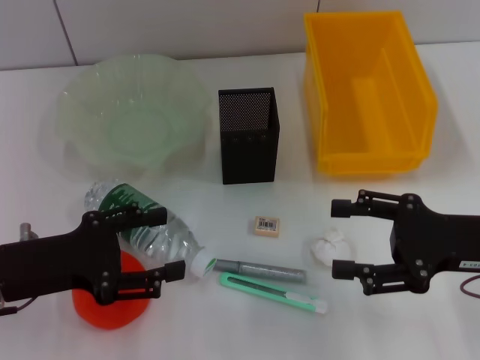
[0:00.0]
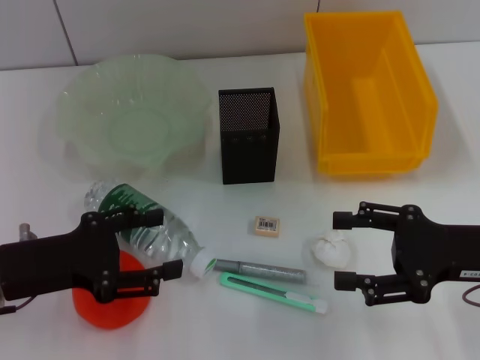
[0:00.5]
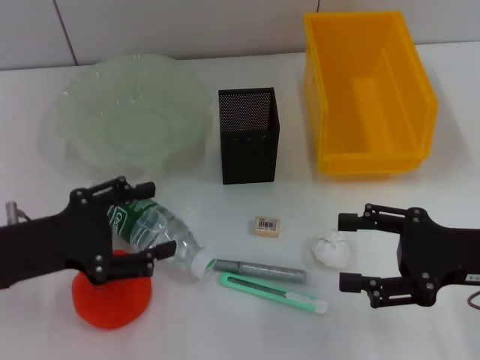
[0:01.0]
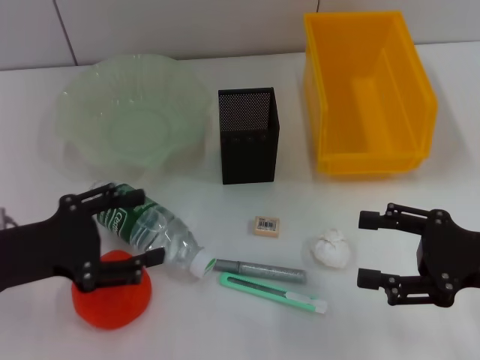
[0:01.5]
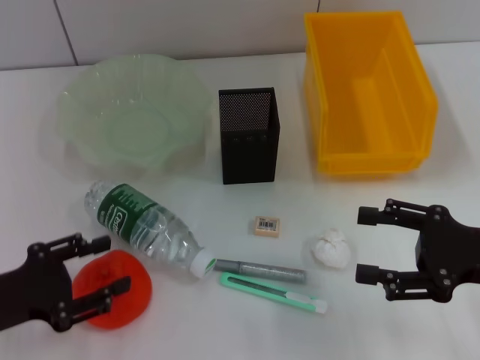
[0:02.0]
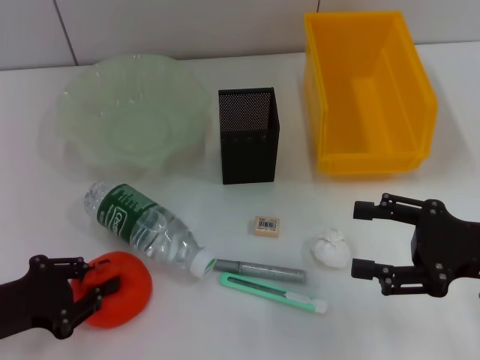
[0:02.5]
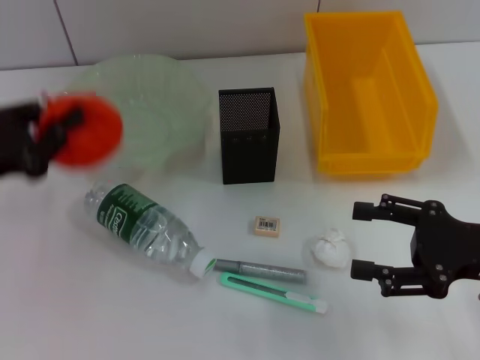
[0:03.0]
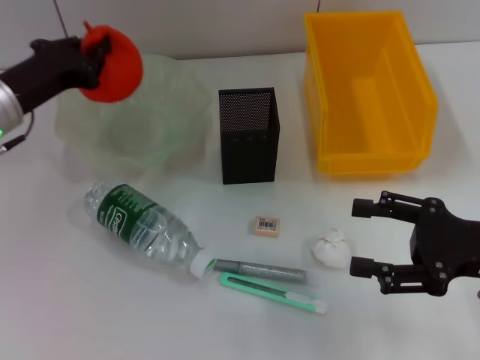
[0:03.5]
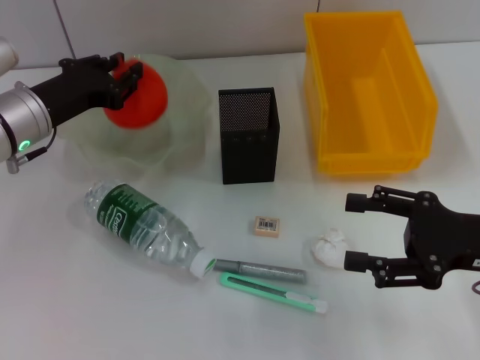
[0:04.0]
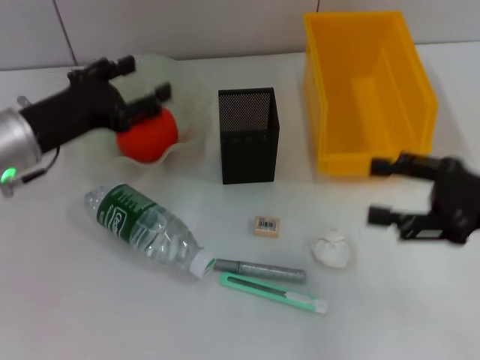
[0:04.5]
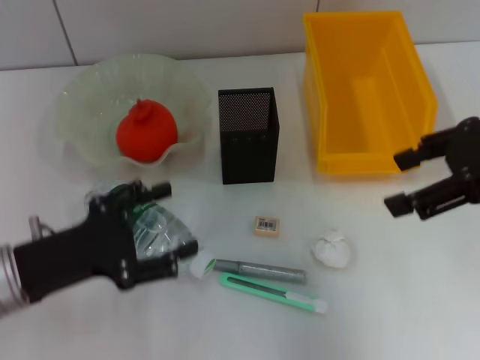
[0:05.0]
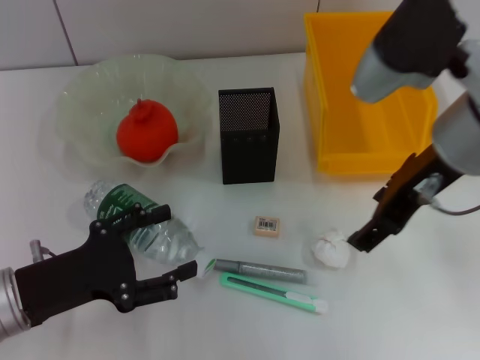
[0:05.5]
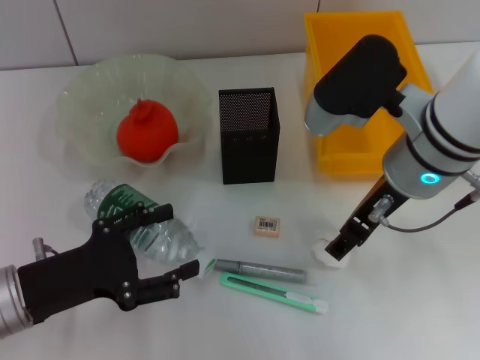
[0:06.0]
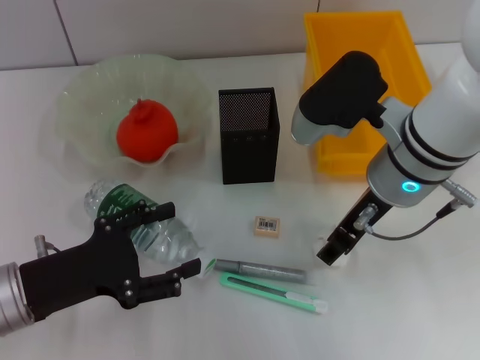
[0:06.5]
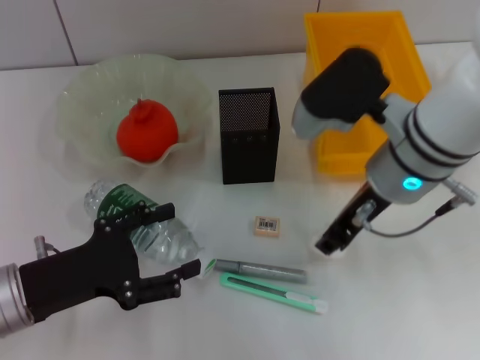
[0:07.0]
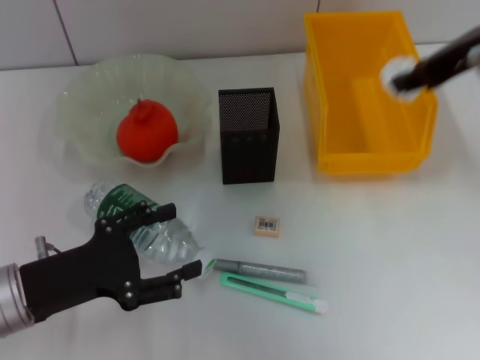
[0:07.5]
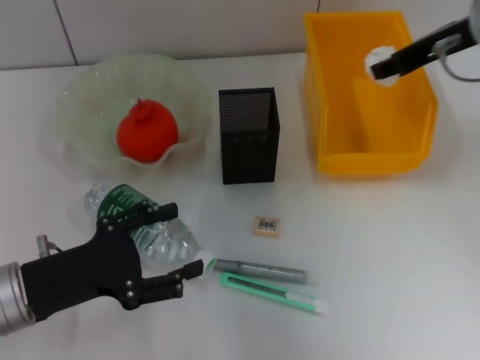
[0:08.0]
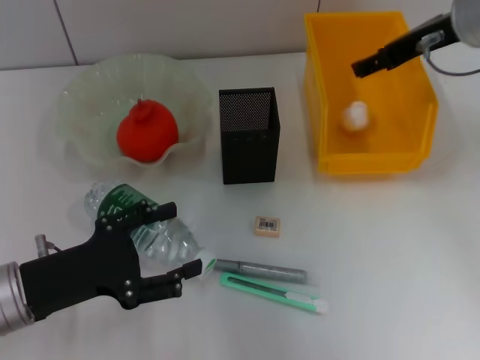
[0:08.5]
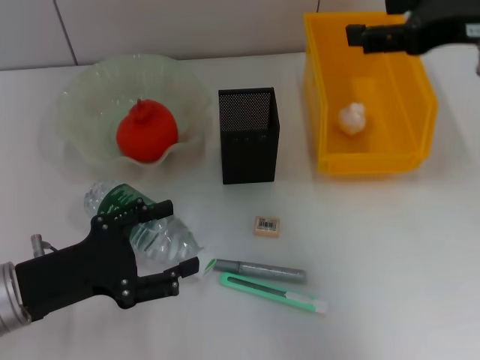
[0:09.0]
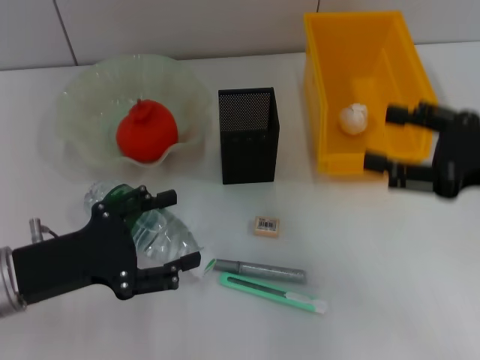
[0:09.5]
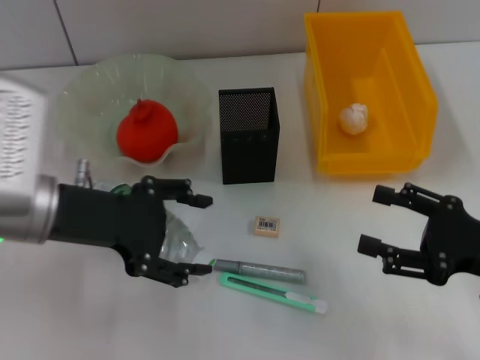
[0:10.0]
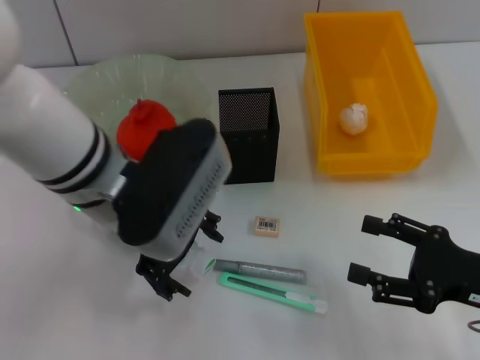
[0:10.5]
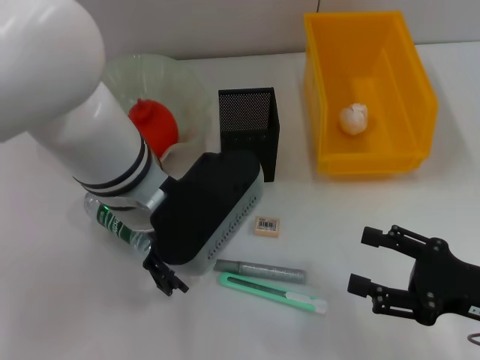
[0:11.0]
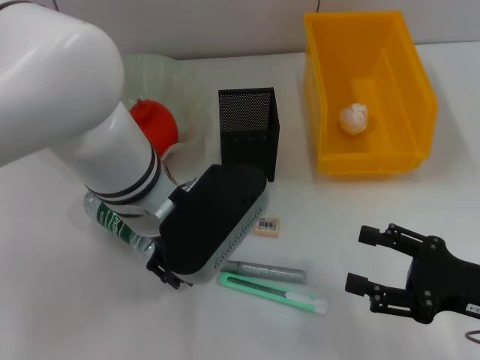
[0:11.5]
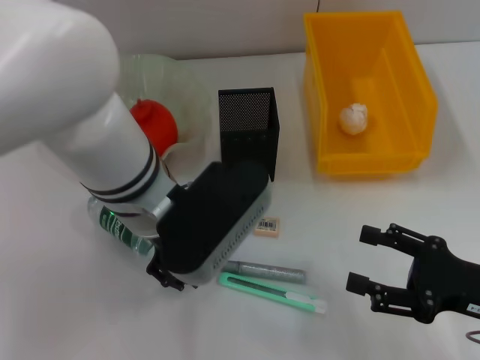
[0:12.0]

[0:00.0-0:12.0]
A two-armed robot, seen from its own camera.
Step, 0:00.0 to 0:02.5: Grab the orange with the left hand.
Step, 0:03.0 to 0:04.0: Place the orange into the fruit bowl with the left hand.
Step, 0:04.5 to 0:06.5: Grab the paper ball with the right hand.
Step, 0:07.0 to 0:08.5: Place the paper ball into the trash can with the right hand.
Step, 0:09.0 to 0:11.5: Grab the water bottle with the left hand.
0:00.0 to 0:02.0: The left gripper shifts by roughly 5 cm.
0:02.0 to 0:04.0: The left gripper is displaced forward and to the right by some 20 cm, and closes.
0:04.0 to 0:06.0: The right gripper travels to the left, forward and upward by about 20 cm, while the left gripper shifts some 15 cm backward, and opens its fingers.
0:06.0 to 0:08.0: The right gripper is displaced to the right, forward and upward by roughly 15 cm, and closes up.
0:08.0 to 0:10.0: The right gripper travels backward and downward by some 25 cm, and opens; the left gripper travels upward and forward by some 10 cm.
0:10.0 to 0:12.0: The left gripper goes about 15 cm to the right, and closes.

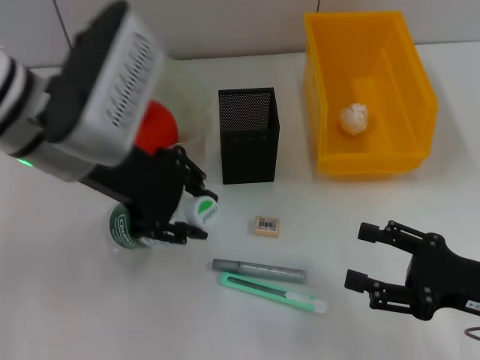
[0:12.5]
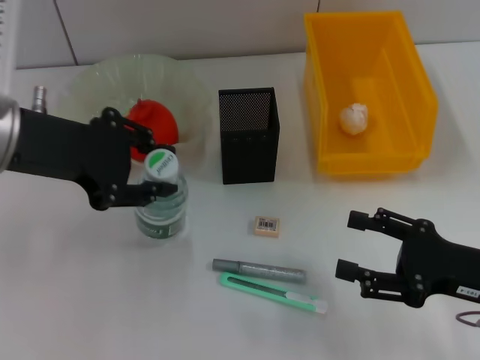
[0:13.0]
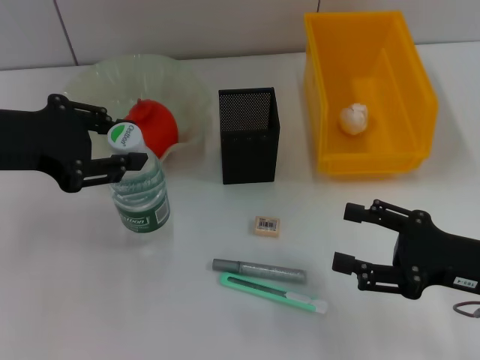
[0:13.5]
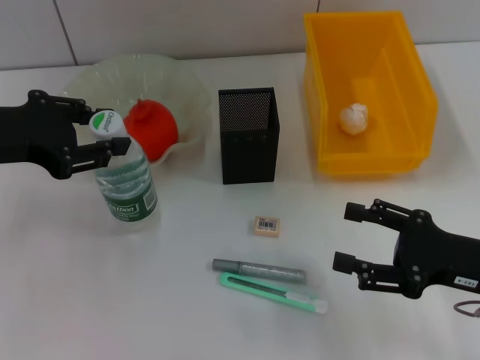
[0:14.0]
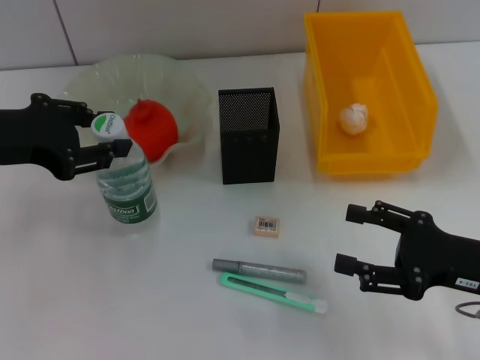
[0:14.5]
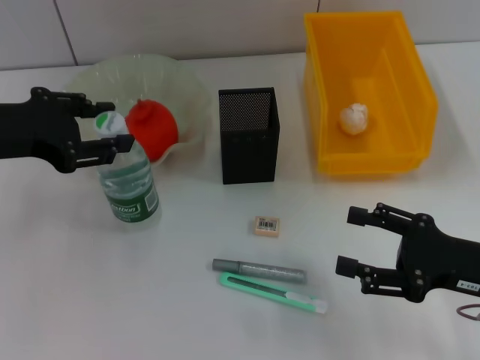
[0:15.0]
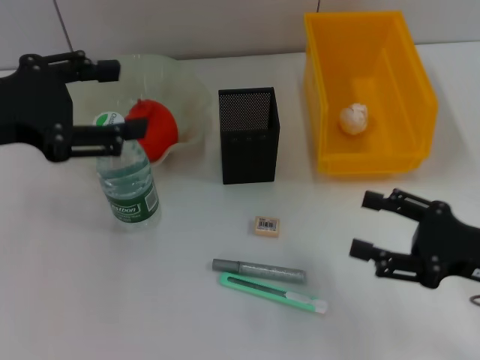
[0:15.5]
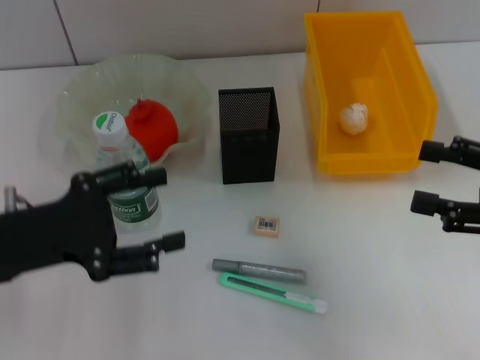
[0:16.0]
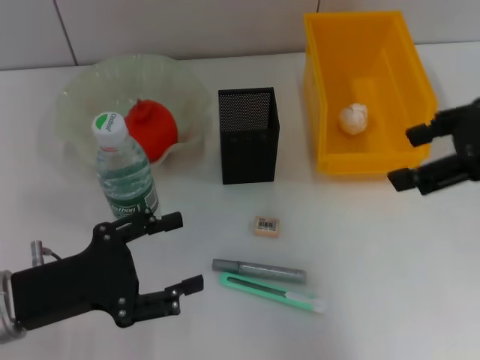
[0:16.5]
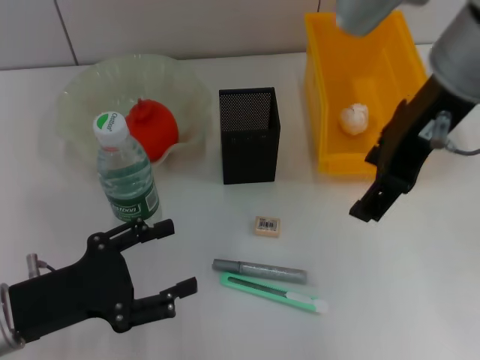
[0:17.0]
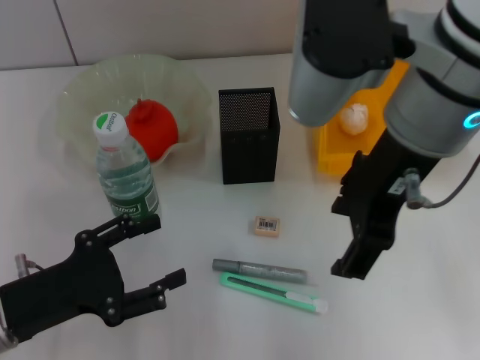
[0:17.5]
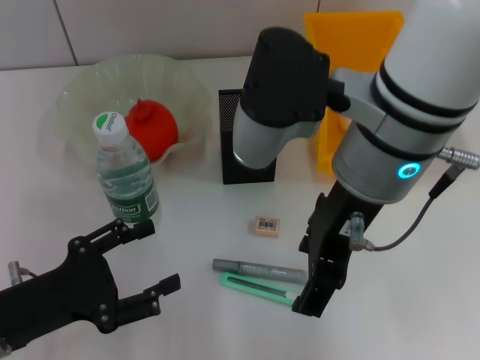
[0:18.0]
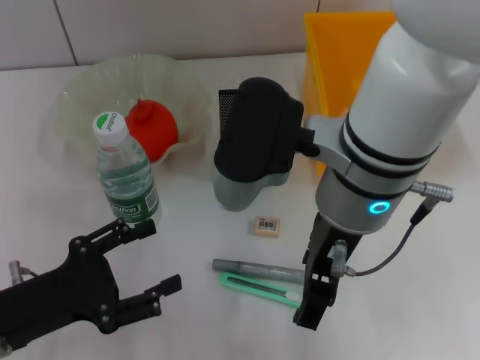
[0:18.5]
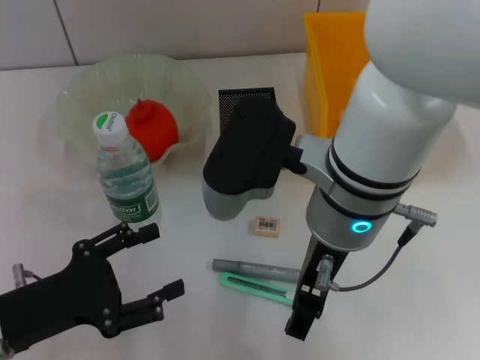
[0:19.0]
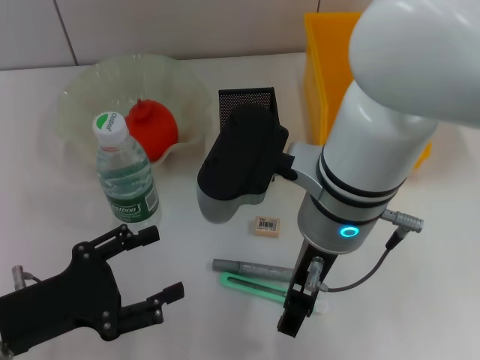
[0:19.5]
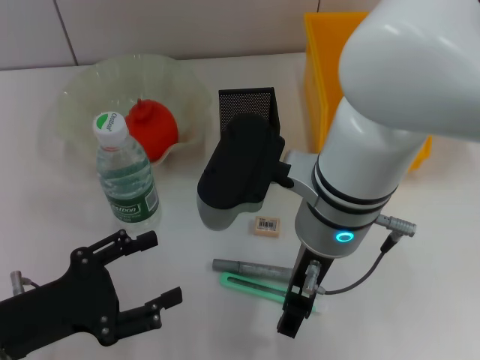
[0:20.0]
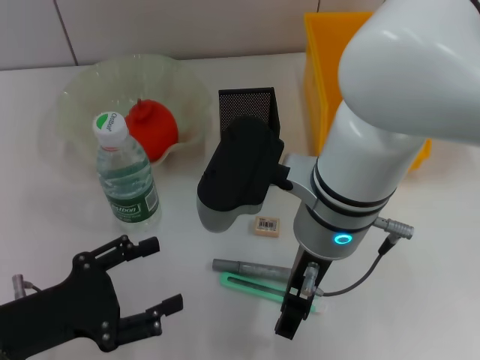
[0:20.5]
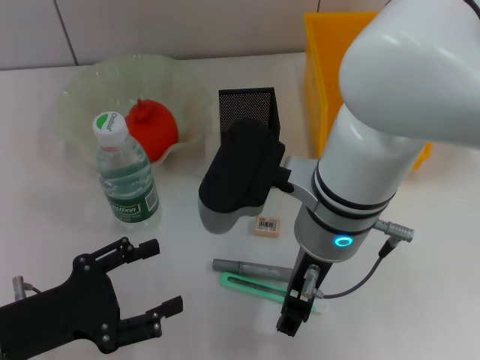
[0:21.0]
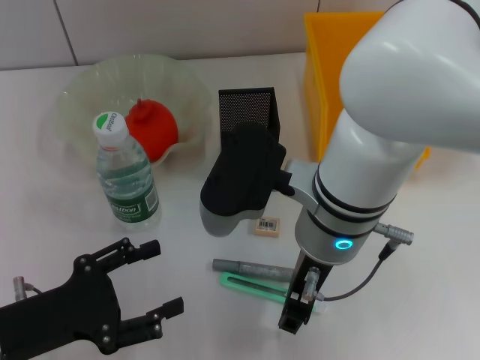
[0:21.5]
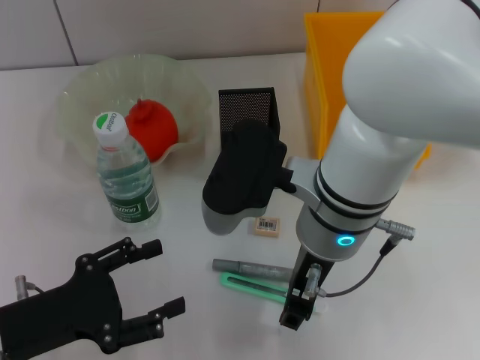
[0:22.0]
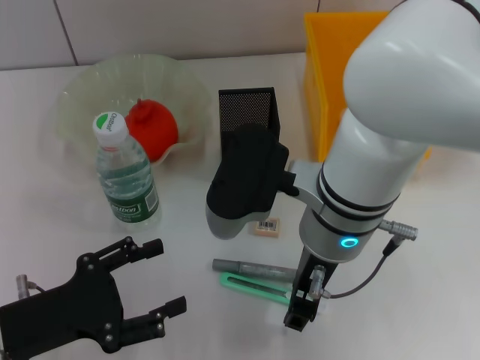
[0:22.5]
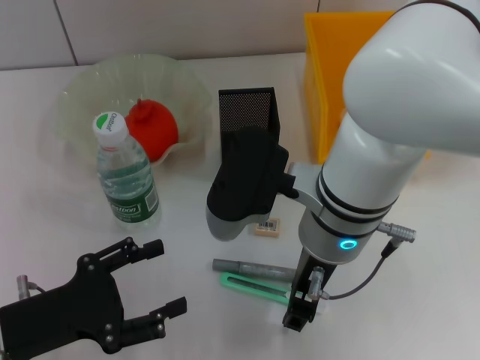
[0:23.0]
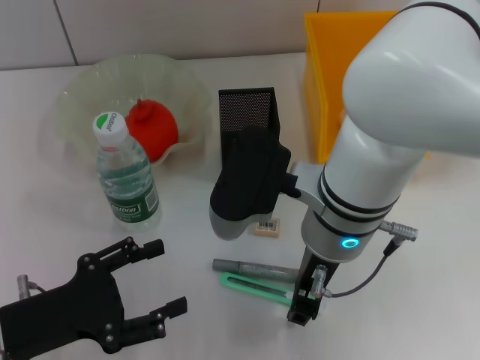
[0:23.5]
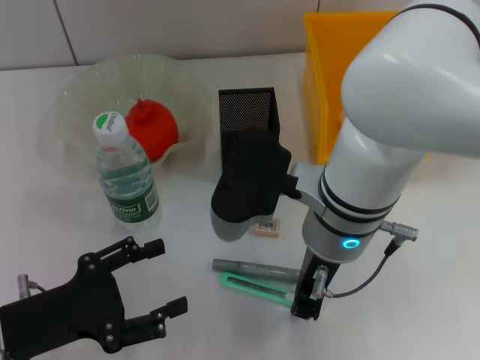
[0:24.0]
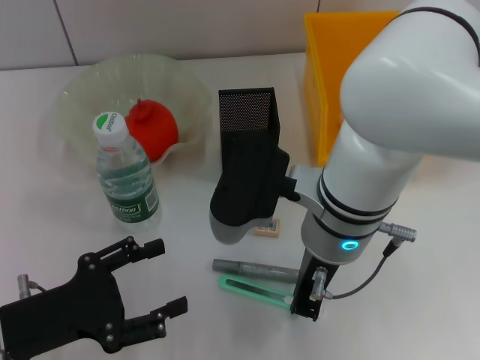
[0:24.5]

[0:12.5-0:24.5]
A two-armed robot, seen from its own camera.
Step, 0:12.5 to 0:15.0: Place the water bottle on the table with the left hand.
0:12.5 to 0:14.5: The left gripper shifts roughly 10 cm to the left.
0:14.5 to 0:16.5: The right gripper is displaced upward by some 20 cm. Meanwhile the left gripper heads downward and backward, covering some 15 cm.
0:16.5 to 0:18.5: The right gripper shifts approximately 20 cm to the left.
0:20.5 to 0:22.5: The right gripper closes its fingers.
0:22.5 to 0:24.5: The right gripper closes its fingers.

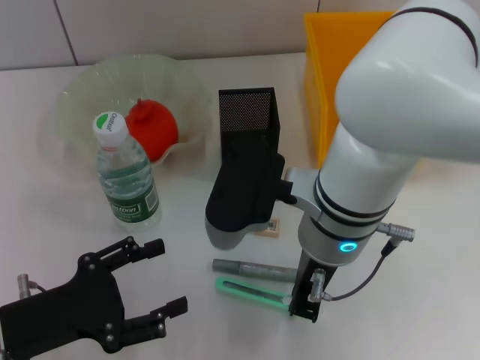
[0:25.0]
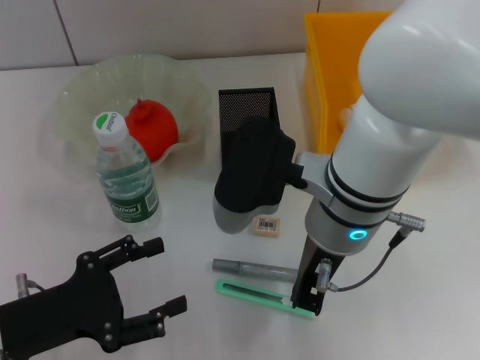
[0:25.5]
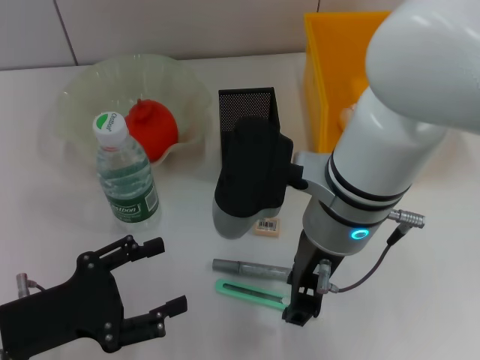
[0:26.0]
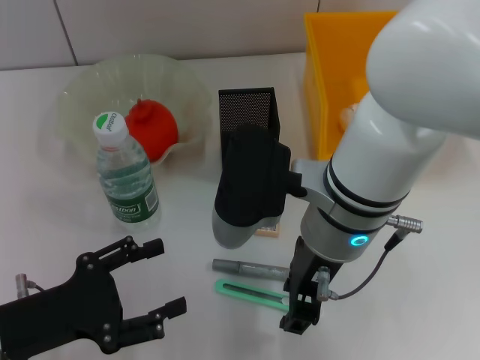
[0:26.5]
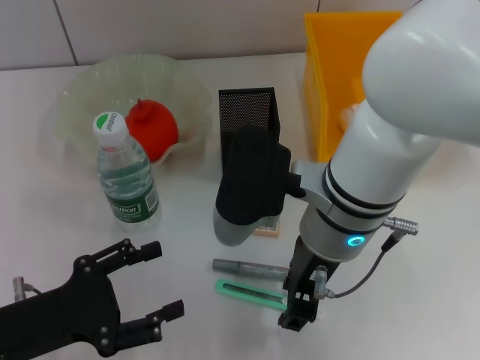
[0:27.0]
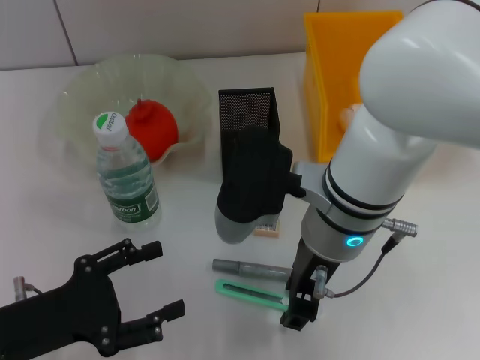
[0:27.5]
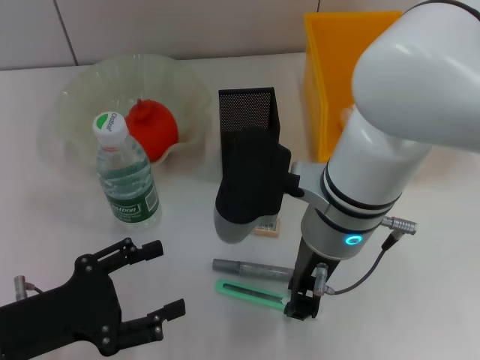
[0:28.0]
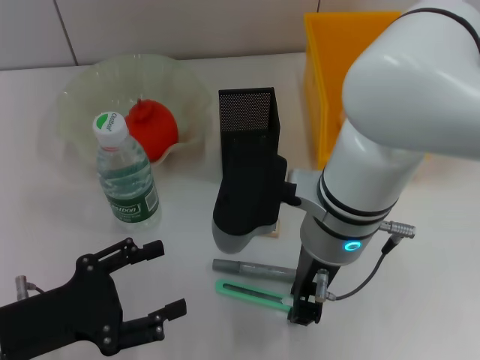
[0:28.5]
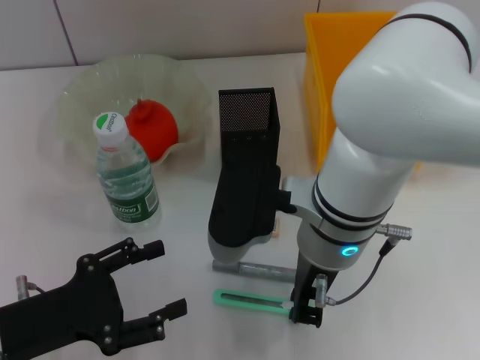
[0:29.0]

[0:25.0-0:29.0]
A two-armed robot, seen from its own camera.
0:25.0 to 0:27.0: The right gripper opens.
0:27.0 to 0:29.0: The right gripper closes up.
